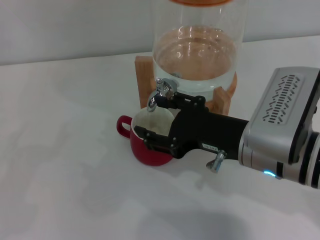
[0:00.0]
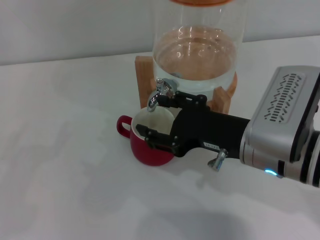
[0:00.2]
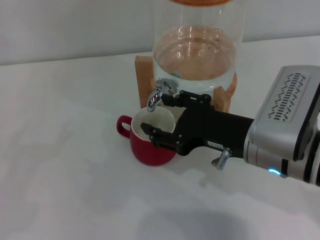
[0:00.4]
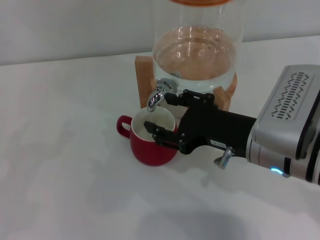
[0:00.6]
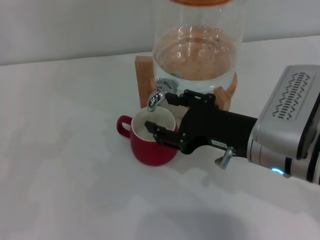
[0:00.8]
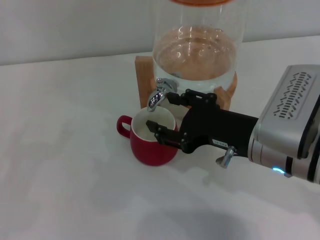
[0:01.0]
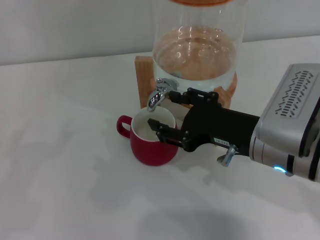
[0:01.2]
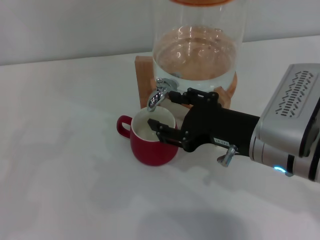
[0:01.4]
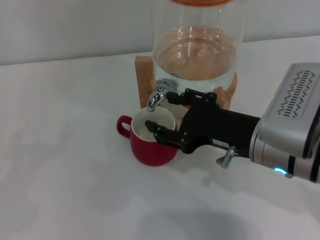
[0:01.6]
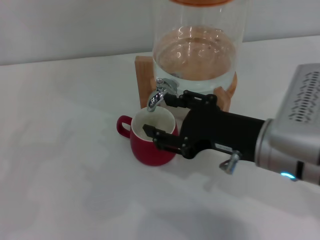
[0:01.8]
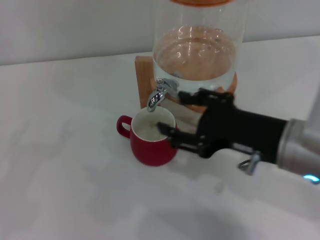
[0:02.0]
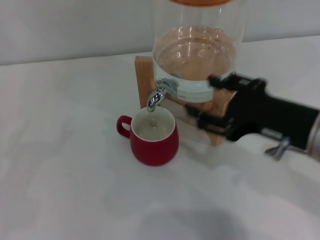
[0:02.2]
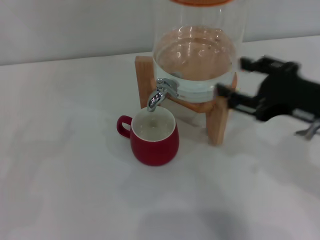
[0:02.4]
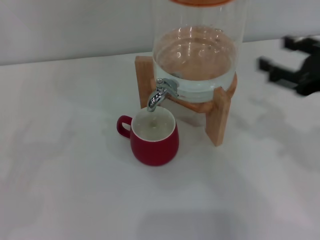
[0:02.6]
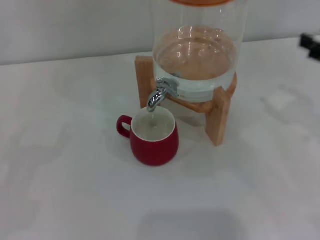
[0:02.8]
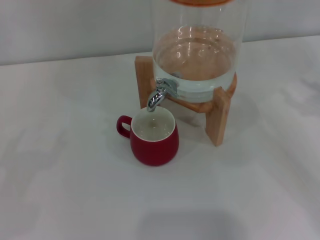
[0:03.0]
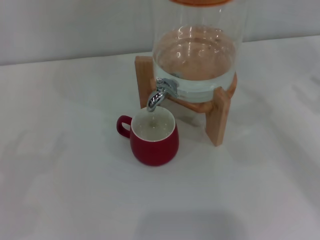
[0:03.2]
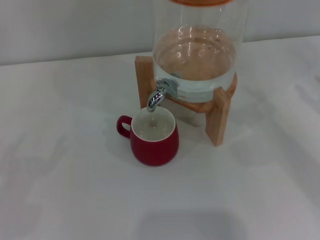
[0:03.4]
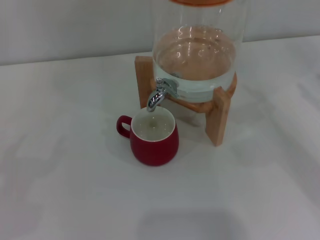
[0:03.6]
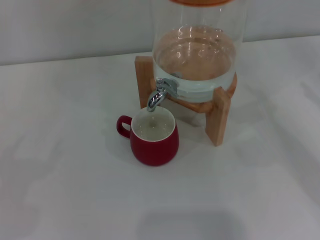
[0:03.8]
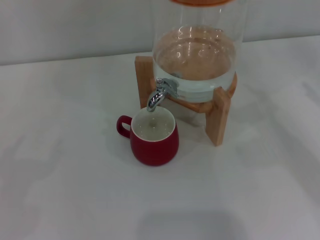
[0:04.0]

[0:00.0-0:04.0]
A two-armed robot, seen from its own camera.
Task of the whole recording: the left gripper pick up the red cup and place it horizontally under the faucet, the right gripper turn on the faucet to fill the cup, and then turn off the faucet.
0:00.0 to 0:01.4: Neither gripper changes place.
0:01.4 to 0:02.6: The right gripper moves to the right, roughly 10 cm.
0:02.6 to 0:04.0: The right gripper goes approximately 15 cm to the right.
